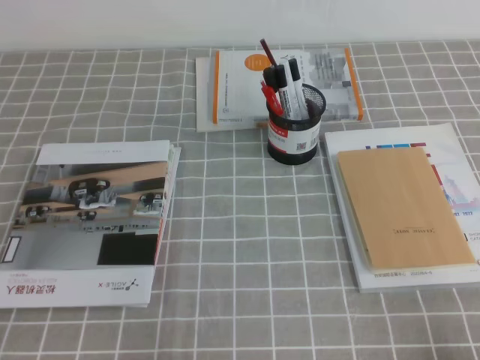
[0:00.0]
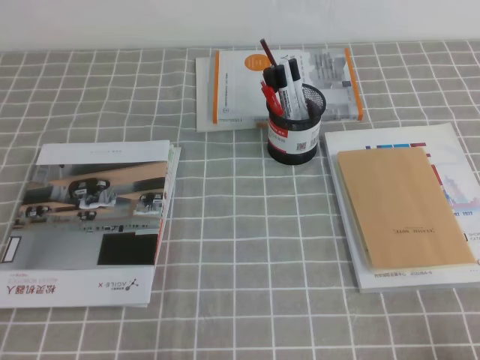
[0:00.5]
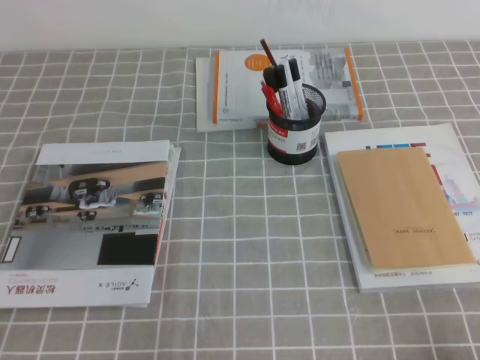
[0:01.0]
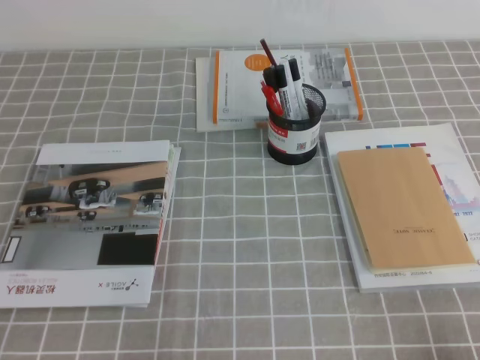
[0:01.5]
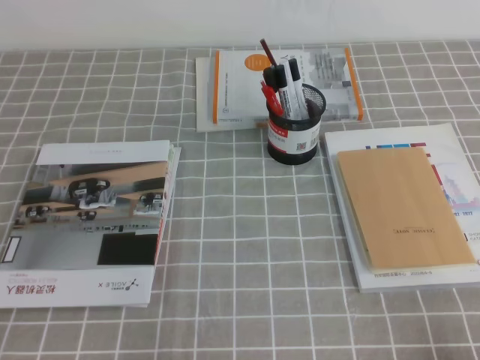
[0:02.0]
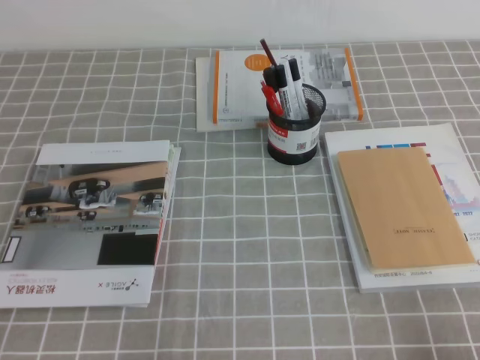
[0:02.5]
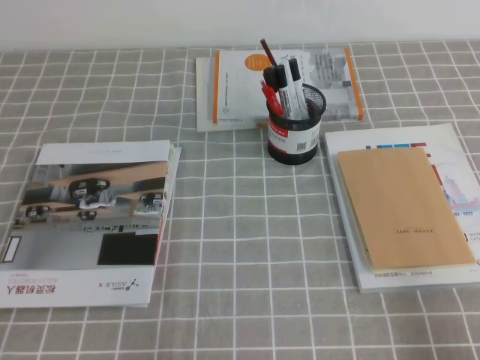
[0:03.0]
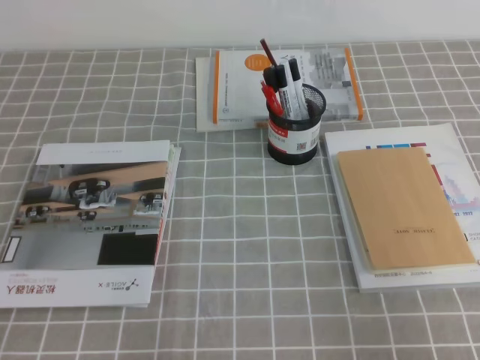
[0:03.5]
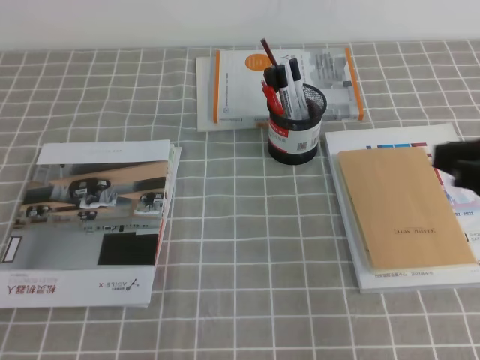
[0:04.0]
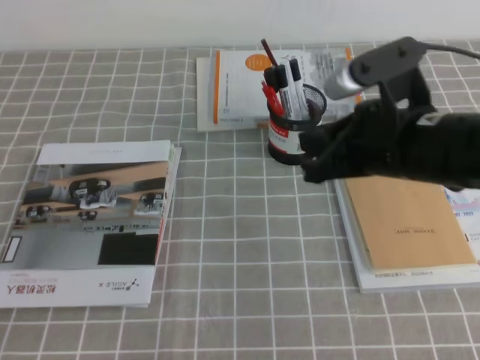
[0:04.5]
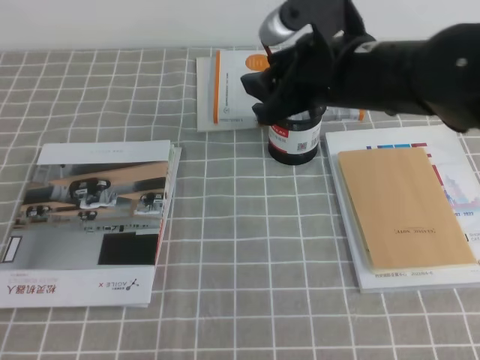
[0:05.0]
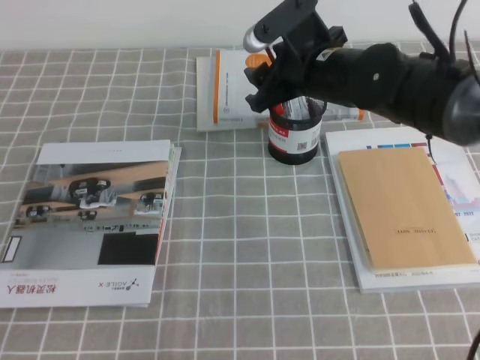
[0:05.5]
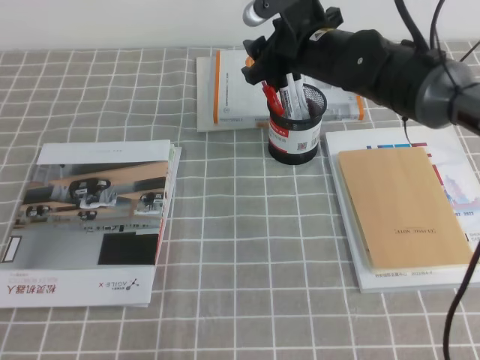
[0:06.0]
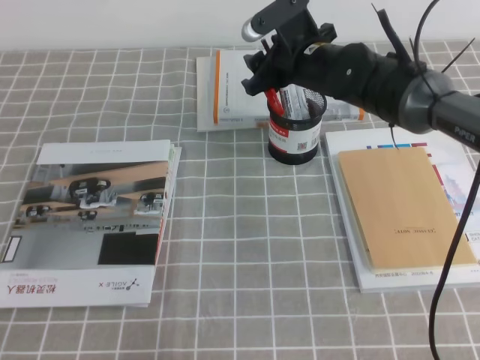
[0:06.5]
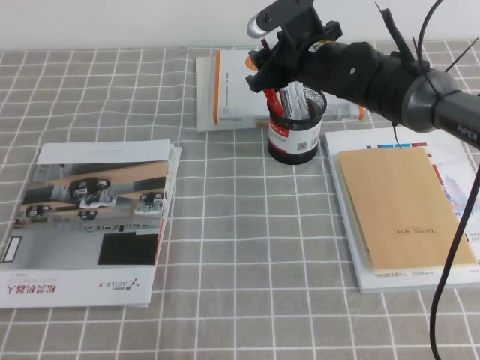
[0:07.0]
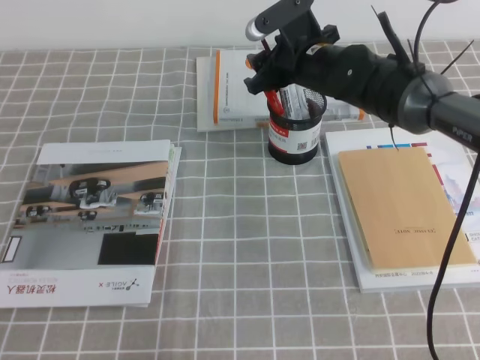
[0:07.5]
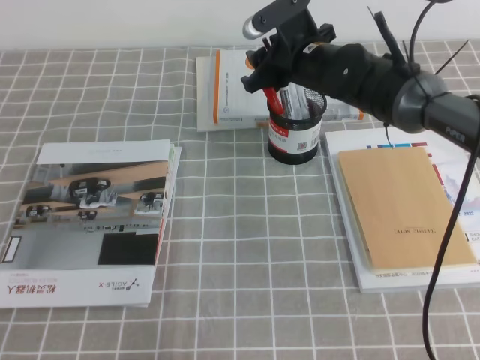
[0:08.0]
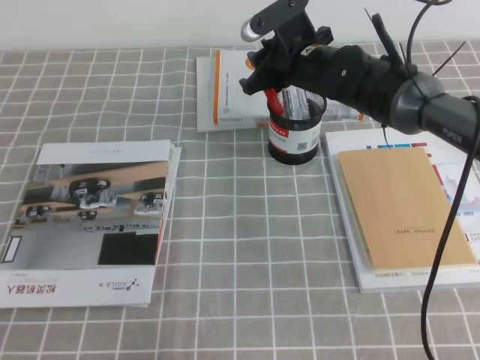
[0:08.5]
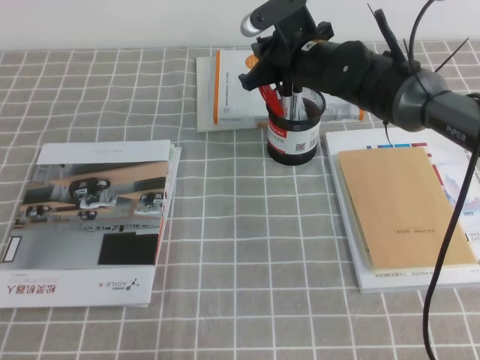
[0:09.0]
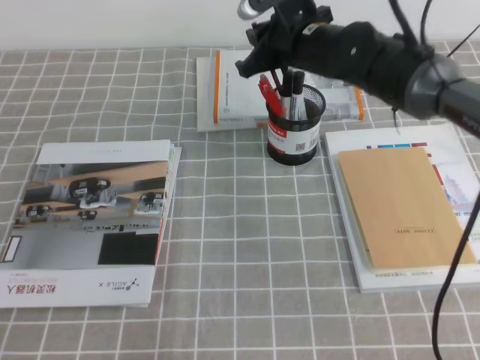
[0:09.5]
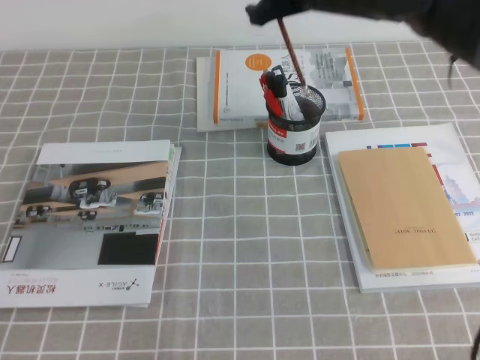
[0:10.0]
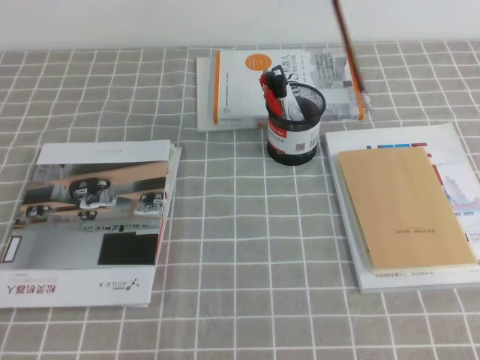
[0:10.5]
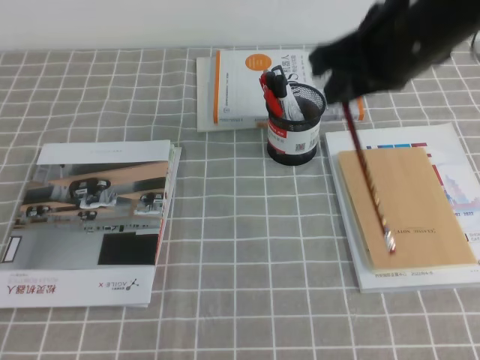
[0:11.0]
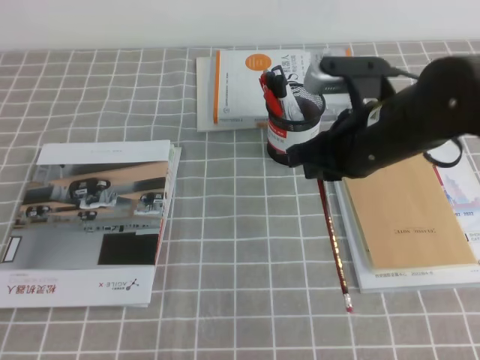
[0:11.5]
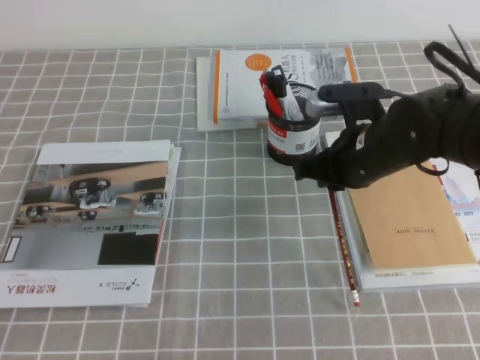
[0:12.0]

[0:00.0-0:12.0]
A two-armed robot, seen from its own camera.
0:00.0 to 0:02.0: Both grippers stay put.
0:02.0 to 0:04.0: The right gripper is displaced upward and forward by approximately 20 cm.
0:04.0 to 0:06.0: The right gripper is displaced forward and to the left by approximately 30 cm, and opens up.
0:06.0 to 0:08.0: There are only small adjustments of the grippers.
0:08.0 to 0:10.0: The right gripper goes about 15 cm upward and backward, and closes its fingers.
0:10.0 to 0:12.0: The right gripper is displaced downward and backward by some 15 cm.

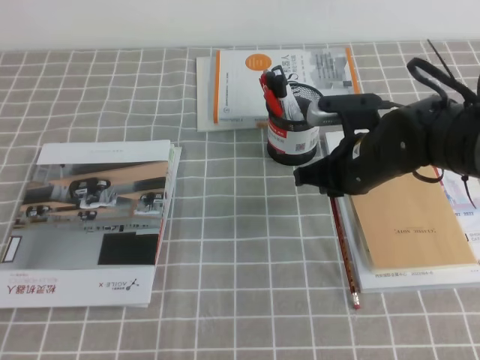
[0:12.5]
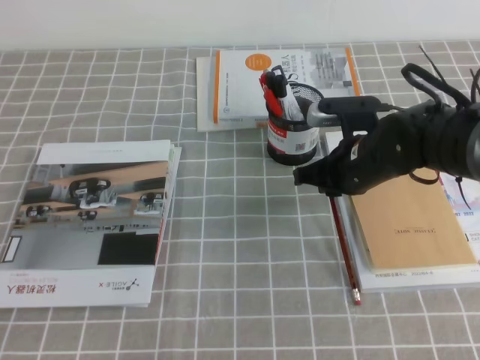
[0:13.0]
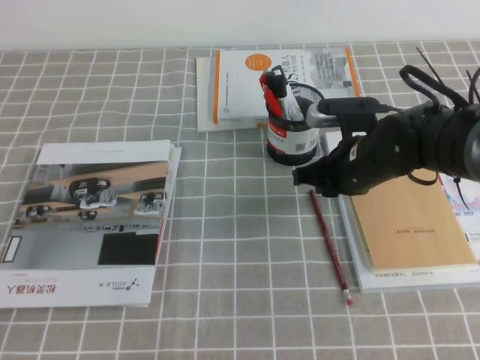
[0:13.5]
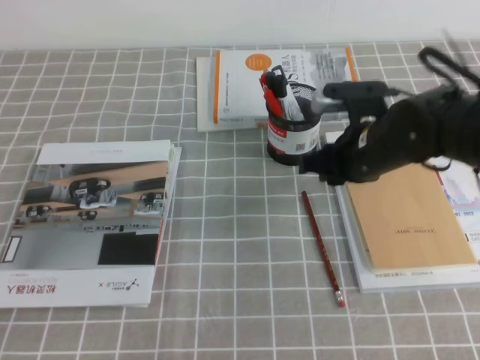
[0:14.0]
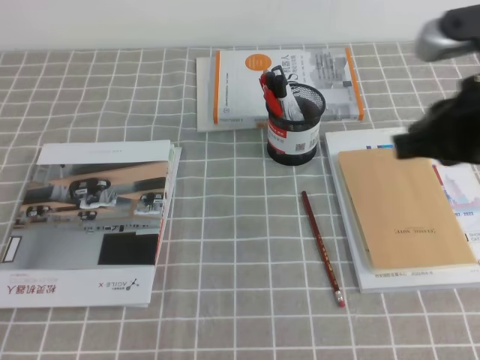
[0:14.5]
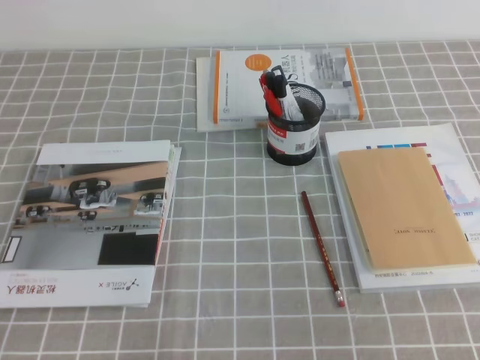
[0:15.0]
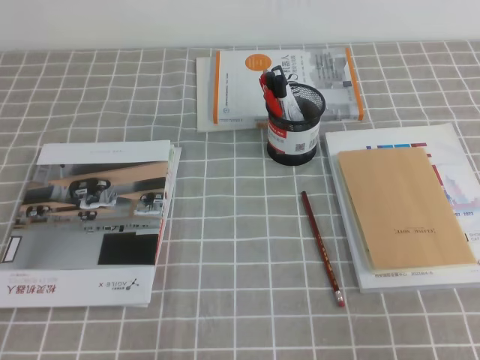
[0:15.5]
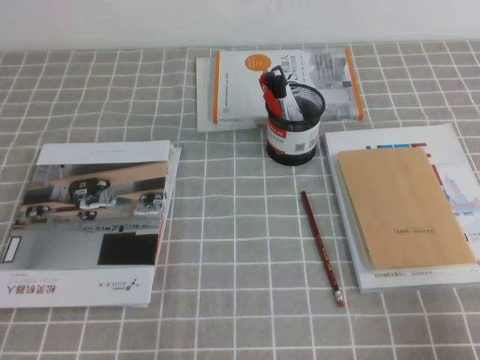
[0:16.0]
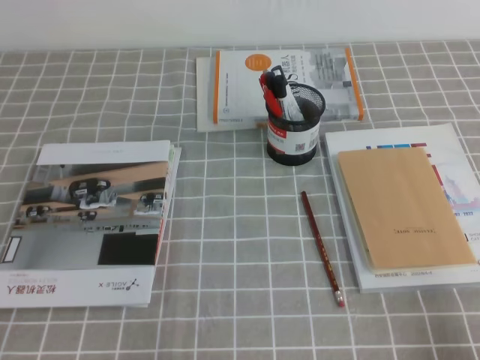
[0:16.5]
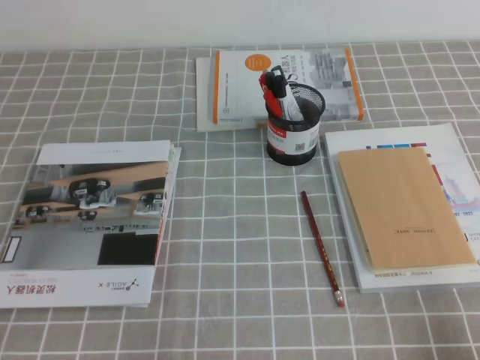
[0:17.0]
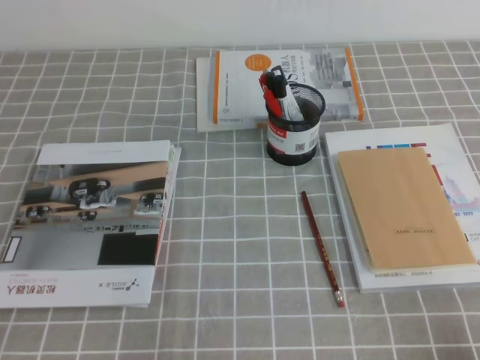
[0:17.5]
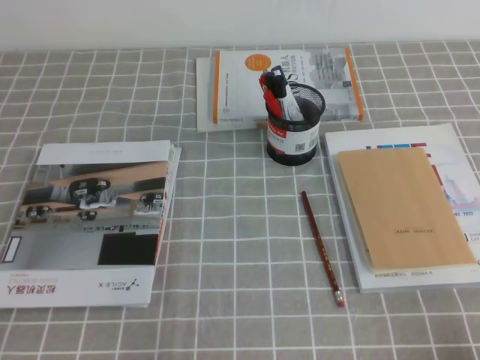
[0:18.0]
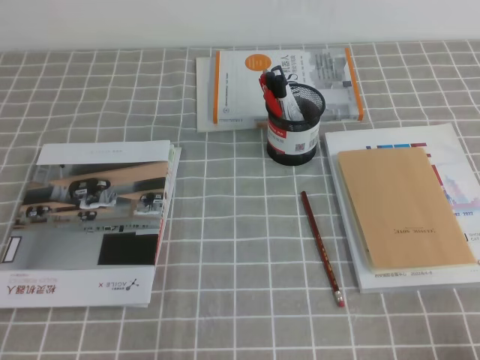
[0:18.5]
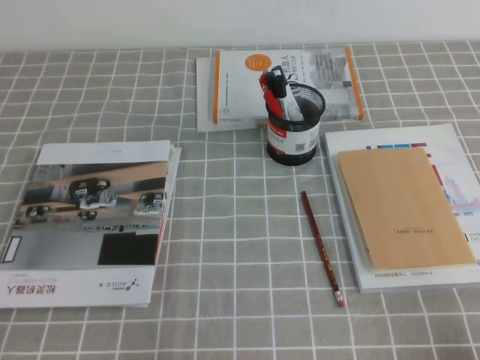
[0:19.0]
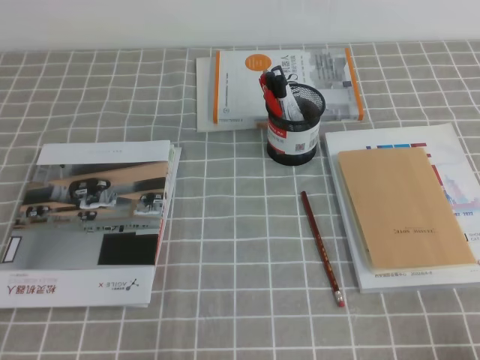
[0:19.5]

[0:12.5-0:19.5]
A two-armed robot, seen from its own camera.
Step, 0:12.5 to 0:19.5: Pick up the pen from the pen holder.
0:12.5 to 0:14.5: The right gripper moves upward, backward and to the right, about 20 cm.
0:14.5 to 0:16.0: The right gripper shifts roughly 25 cm backward, downward and to the right.
0:17.5 to 0:19.5: Neither gripper changes place.
